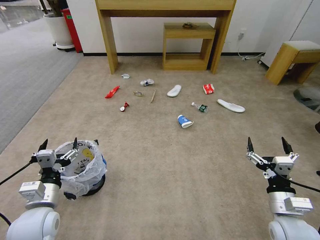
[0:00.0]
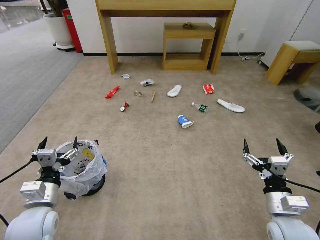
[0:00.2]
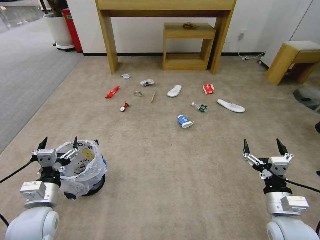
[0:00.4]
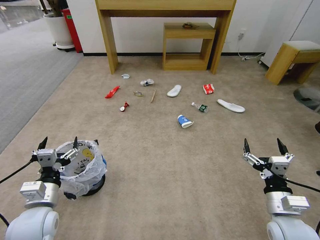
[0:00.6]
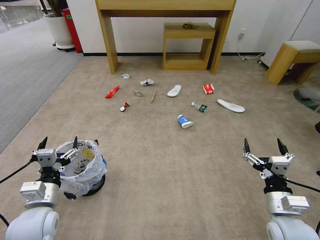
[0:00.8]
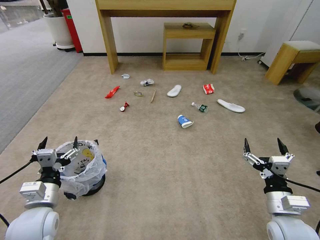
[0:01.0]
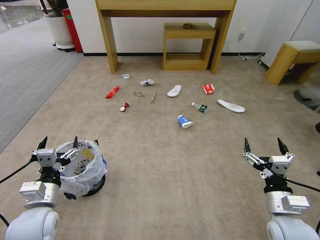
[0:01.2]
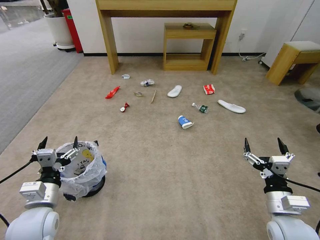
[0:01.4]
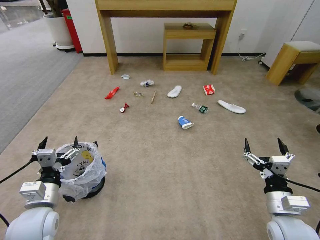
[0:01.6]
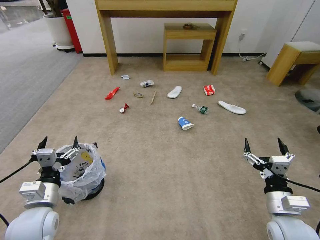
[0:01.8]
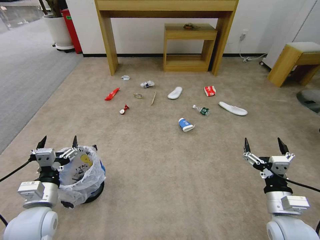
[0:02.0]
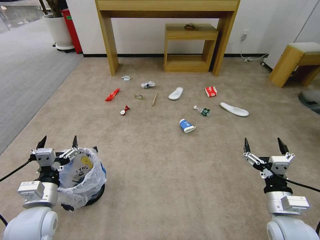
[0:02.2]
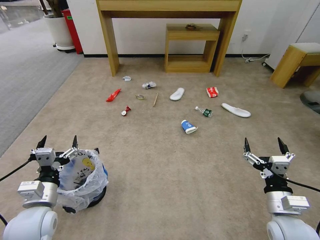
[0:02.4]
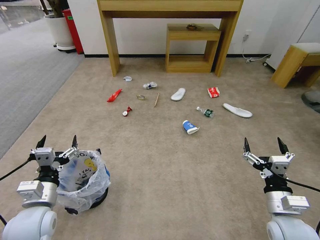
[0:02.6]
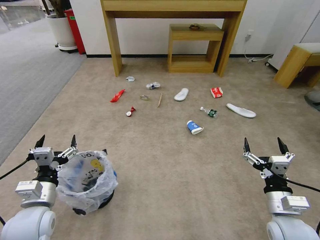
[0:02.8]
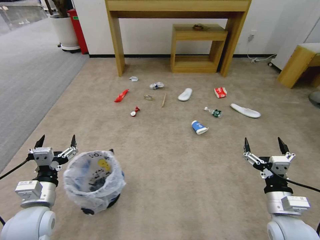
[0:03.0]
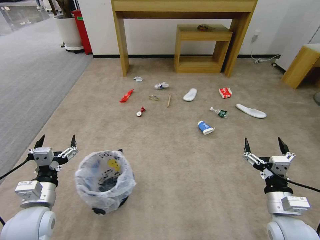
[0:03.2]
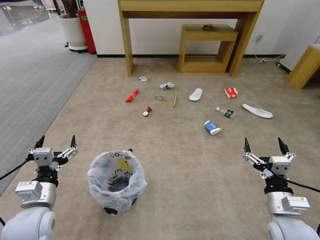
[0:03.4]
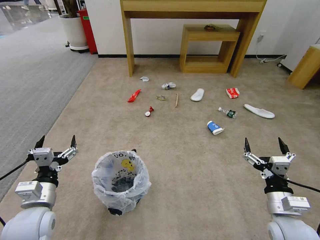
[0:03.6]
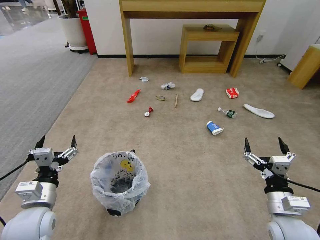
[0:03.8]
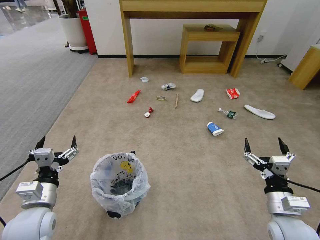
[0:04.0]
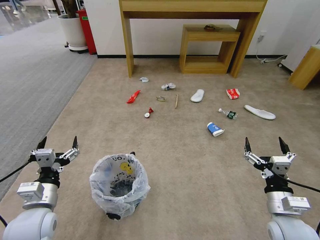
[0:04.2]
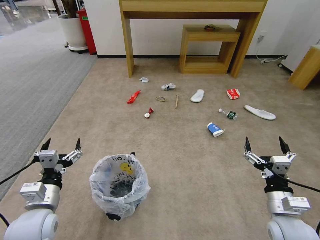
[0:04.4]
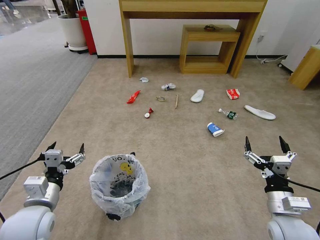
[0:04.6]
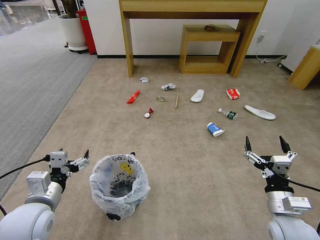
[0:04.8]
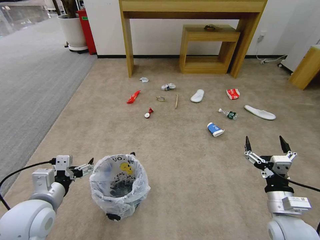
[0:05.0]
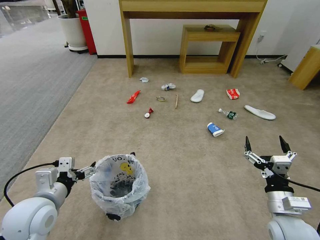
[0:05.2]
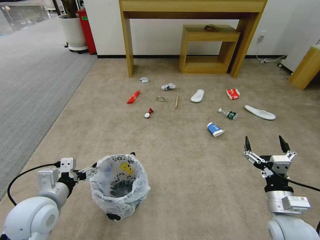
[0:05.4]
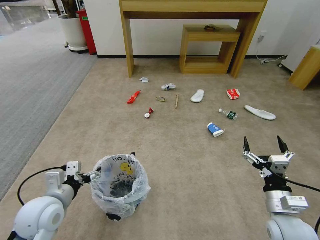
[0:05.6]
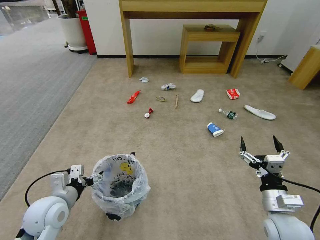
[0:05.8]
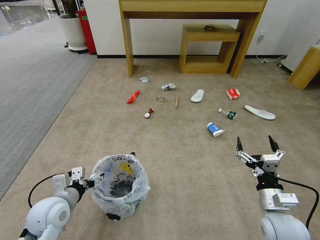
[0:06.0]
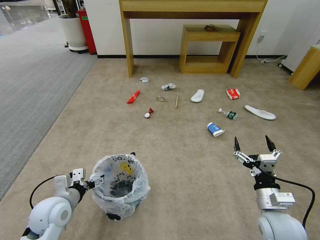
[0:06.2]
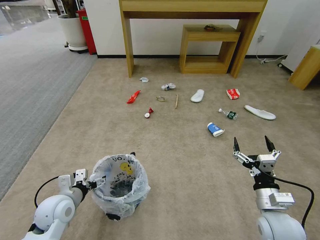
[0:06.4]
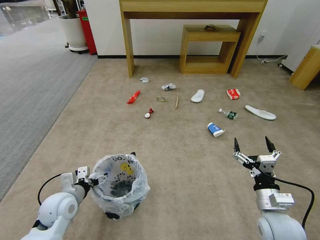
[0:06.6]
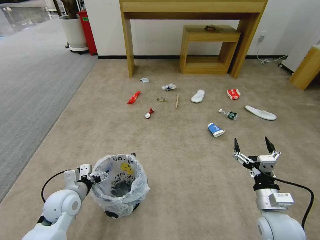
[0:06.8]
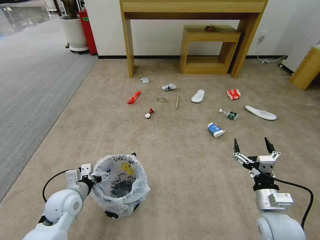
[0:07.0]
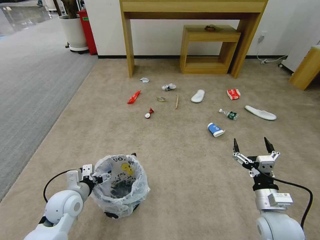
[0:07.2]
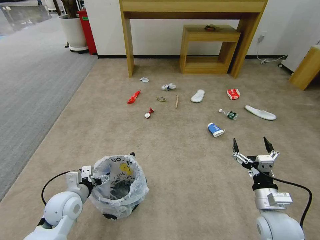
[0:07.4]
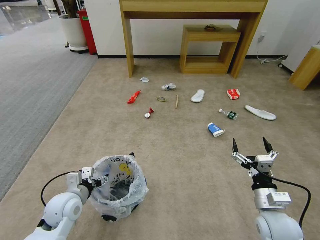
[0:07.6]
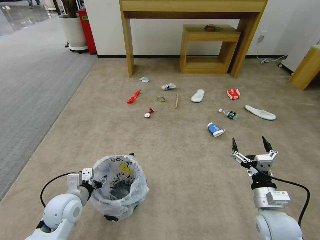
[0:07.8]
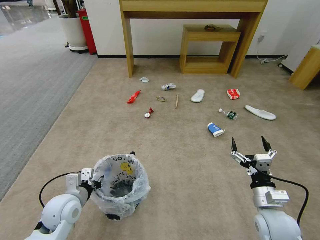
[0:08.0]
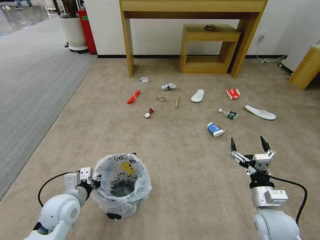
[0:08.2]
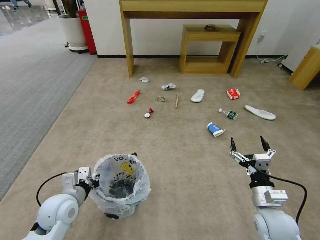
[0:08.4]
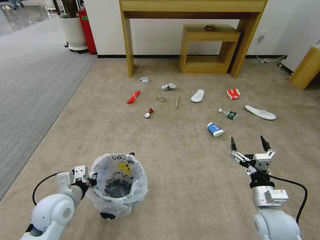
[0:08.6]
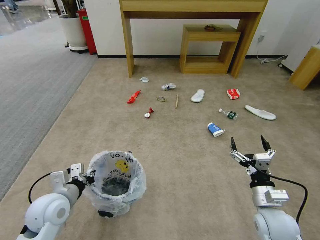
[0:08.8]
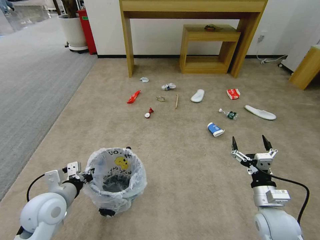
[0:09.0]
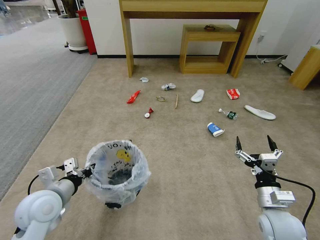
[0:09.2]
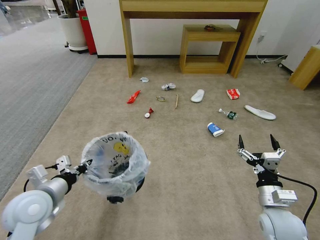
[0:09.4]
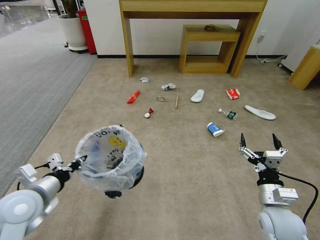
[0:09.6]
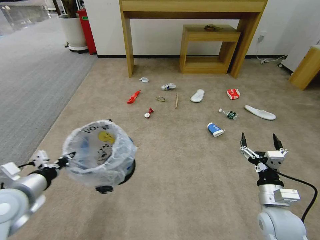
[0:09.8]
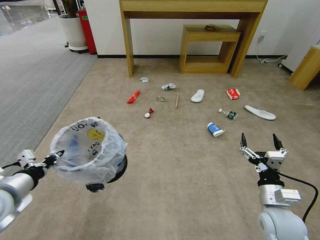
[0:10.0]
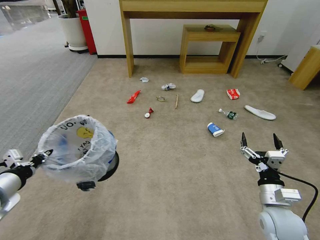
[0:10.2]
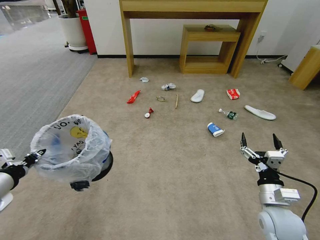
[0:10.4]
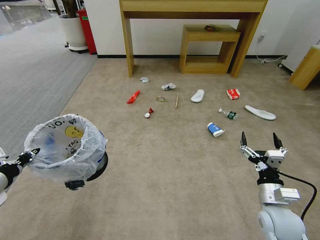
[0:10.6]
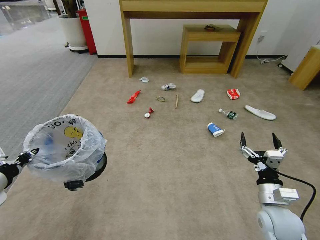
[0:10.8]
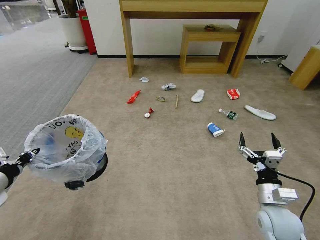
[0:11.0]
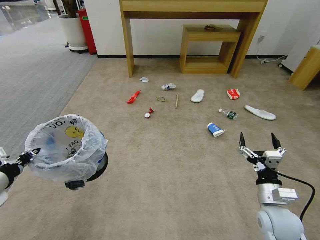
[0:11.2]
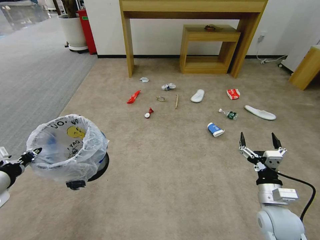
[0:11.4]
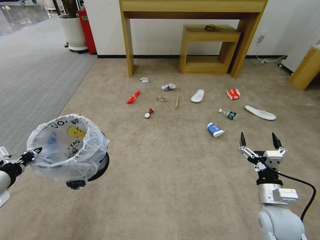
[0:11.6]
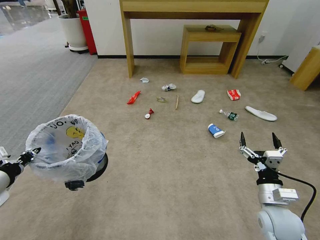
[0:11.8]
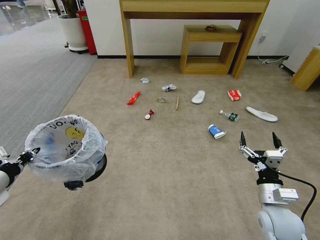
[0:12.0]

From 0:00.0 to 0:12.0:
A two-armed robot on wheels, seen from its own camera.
Task of the whole recording: Pick up the trash bin and place the garbage on the floor into it.
From 0:01.6 to 0:03.0: Neither gripper changes place.
From 0:06.0 to 0:07.6: The grippers stay close to where they were, moving slightly.
From 0:07.6 to 0:09.0: The left gripper moves upward, some 5 cm, and closes up.
From 0:09.0 to 0:10.4: The left gripper travels to the left and upward by about 15 cm.
From 0:10.4 to 0:12.0: The two grippers keep their place.

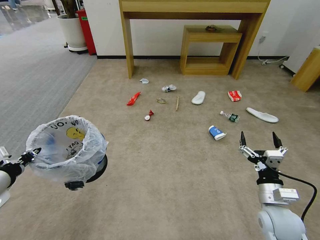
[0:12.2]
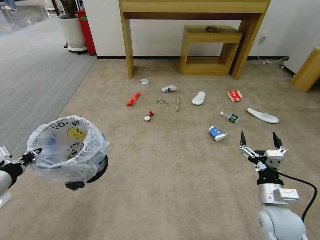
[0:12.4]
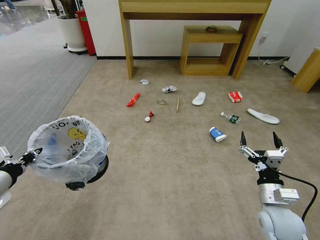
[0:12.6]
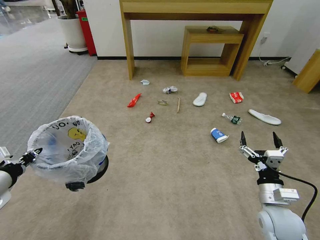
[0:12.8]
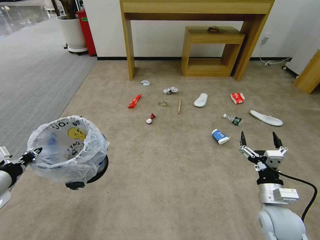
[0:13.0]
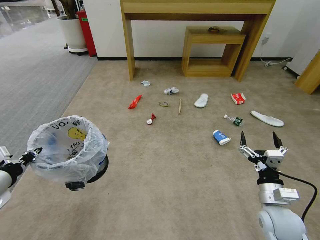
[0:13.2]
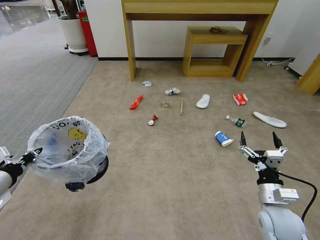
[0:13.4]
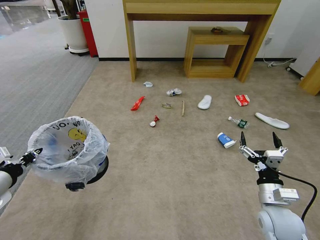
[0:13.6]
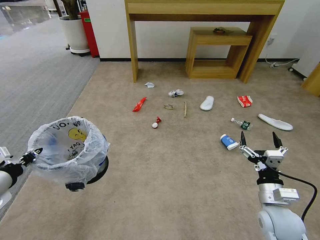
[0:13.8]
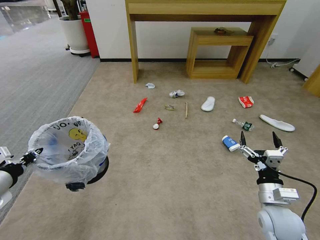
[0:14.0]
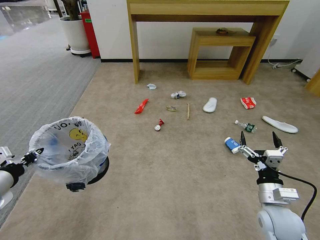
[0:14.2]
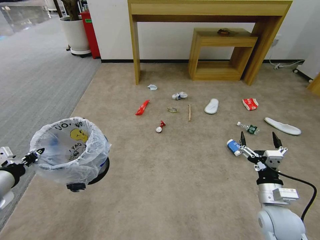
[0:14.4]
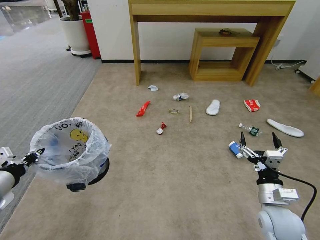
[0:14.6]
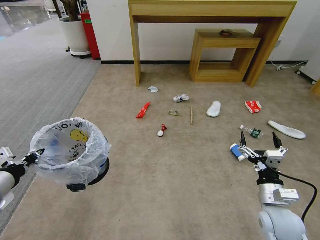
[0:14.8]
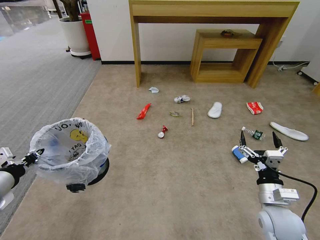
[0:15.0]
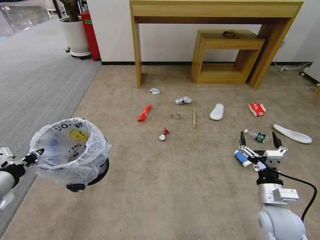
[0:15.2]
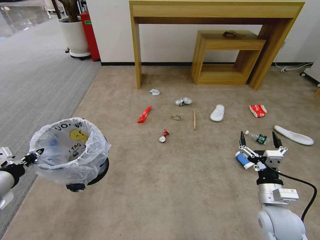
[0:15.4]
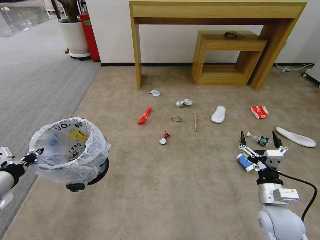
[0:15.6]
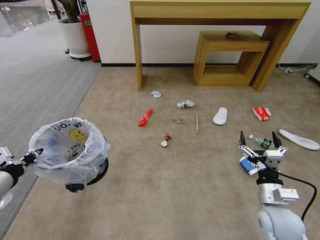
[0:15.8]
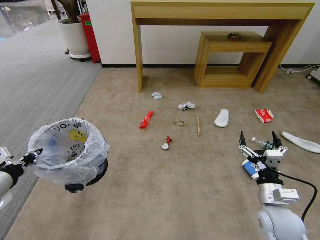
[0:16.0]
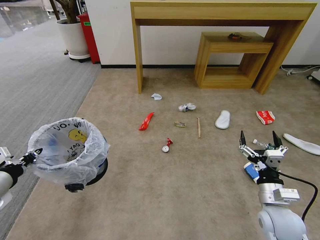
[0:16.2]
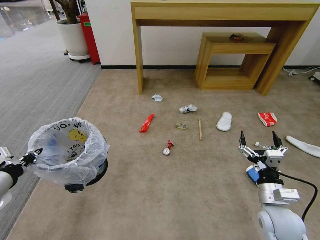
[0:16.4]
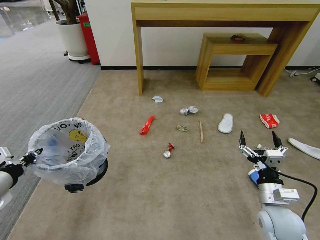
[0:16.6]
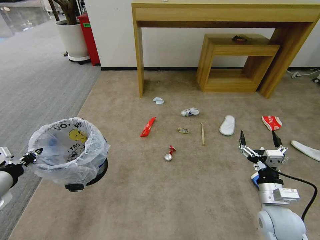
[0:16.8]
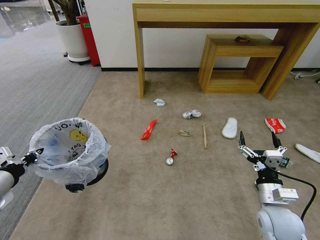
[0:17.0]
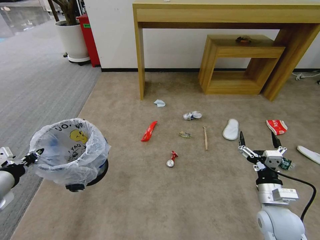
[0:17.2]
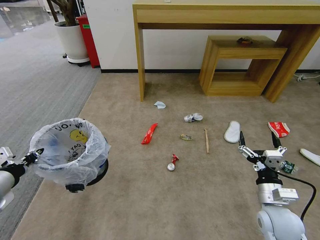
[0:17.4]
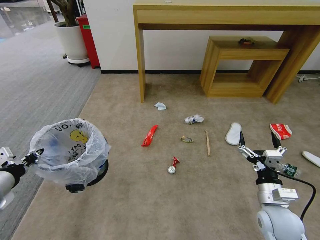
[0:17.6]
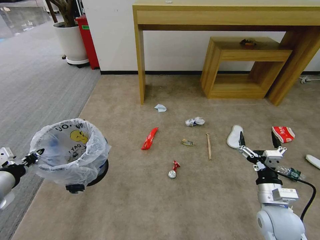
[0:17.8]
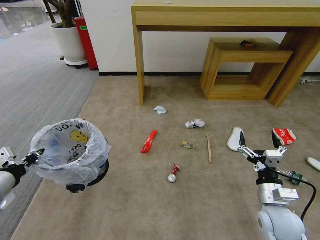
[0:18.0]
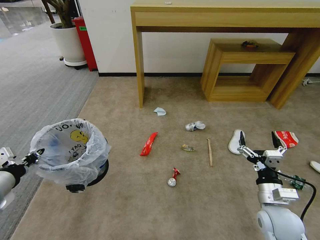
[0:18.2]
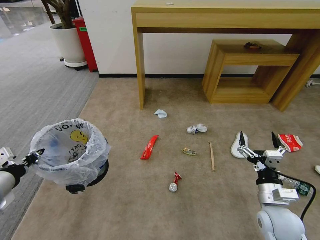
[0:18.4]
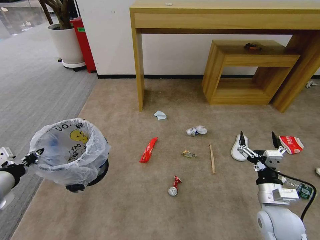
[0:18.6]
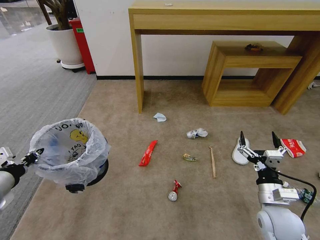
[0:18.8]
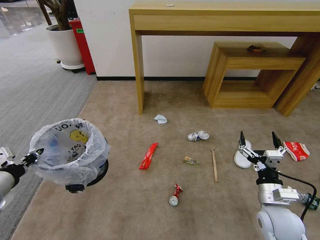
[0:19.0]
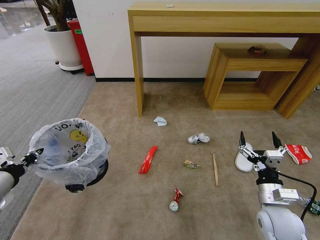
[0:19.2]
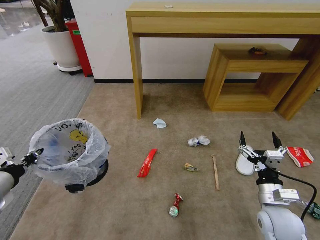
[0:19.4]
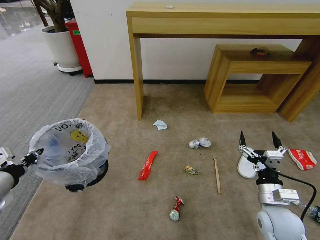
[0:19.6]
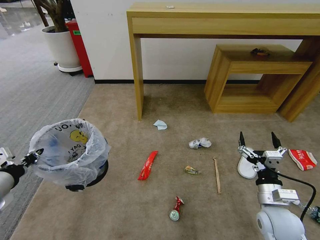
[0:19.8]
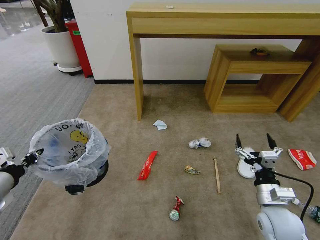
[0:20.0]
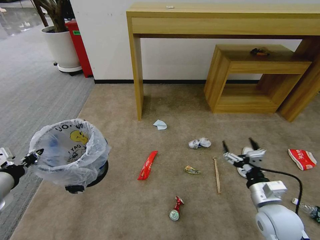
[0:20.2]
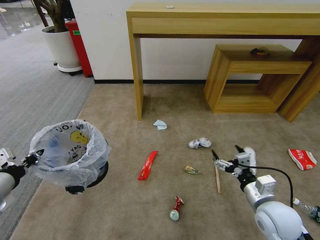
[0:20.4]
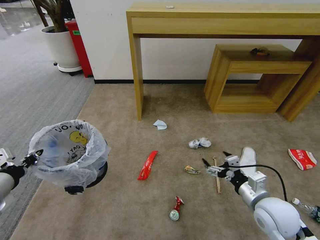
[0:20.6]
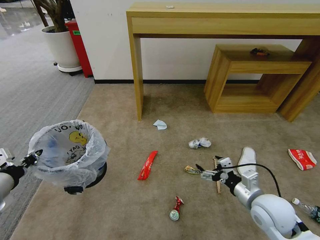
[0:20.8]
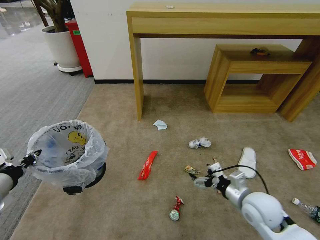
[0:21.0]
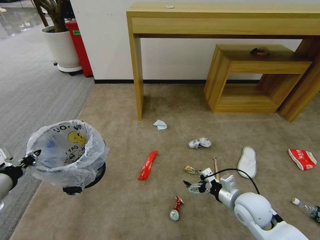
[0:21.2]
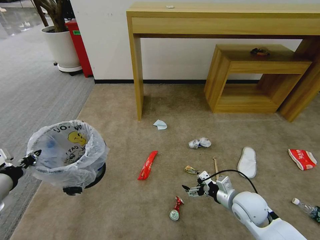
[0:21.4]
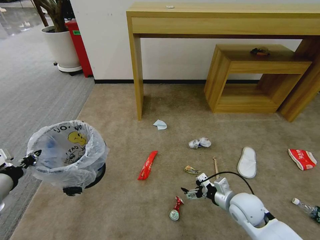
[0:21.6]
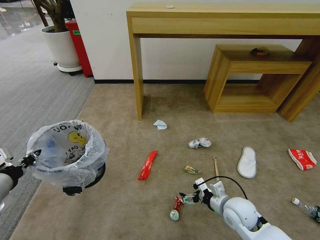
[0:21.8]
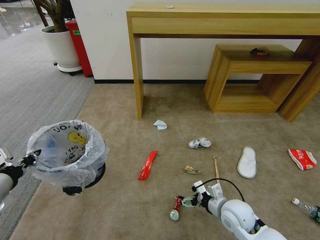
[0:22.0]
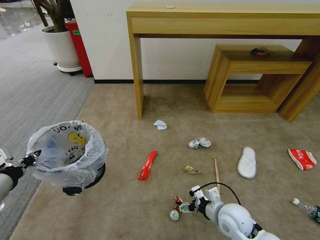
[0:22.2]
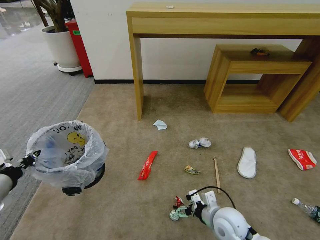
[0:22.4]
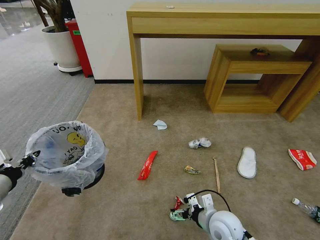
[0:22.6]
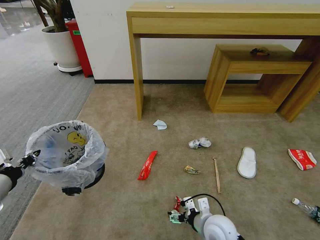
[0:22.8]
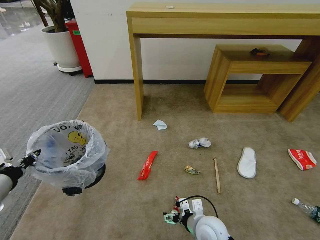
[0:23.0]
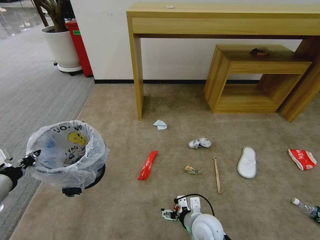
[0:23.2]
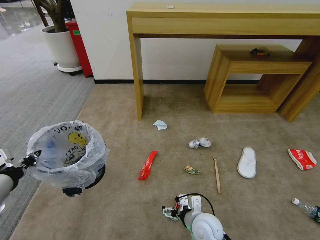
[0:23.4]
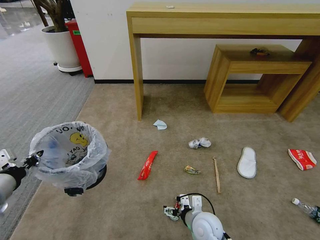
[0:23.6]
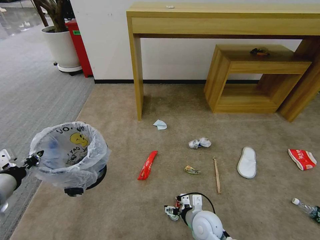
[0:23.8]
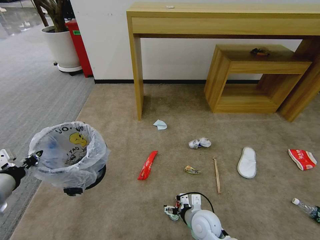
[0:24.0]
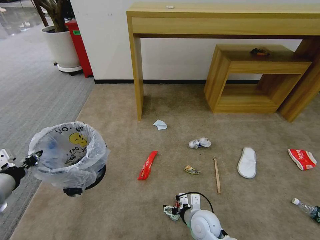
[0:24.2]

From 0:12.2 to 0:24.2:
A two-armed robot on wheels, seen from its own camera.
Task of the whole recording: Pick up the trash bin and place the garbage on the floor into it.
From 0:12.2 to 0:16.6: Both grippers stay about where they are.
From 0:19.8 to 0:21.2: The right gripper moves about 5 cm.
From 0:21.2 to 0:22.6: The right gripper travels to the left and downward by some 10 cm.
From 0:22.6 to 0:24.2: The right gripper changes place by approximately 5 cm.
